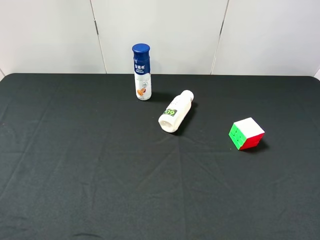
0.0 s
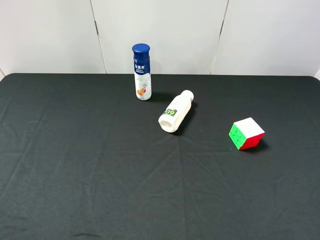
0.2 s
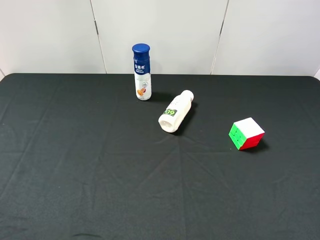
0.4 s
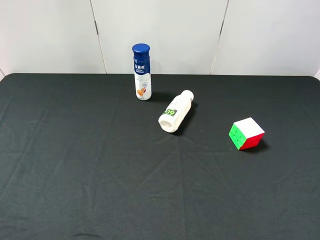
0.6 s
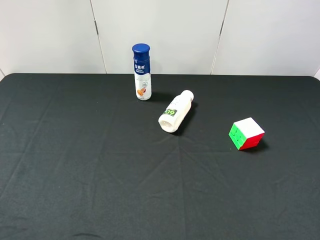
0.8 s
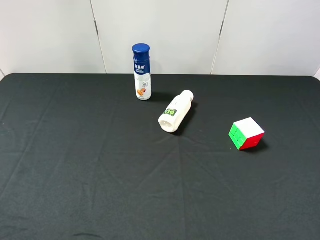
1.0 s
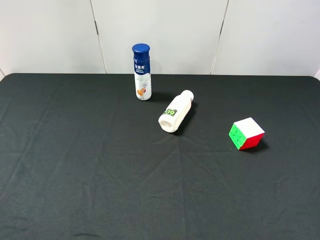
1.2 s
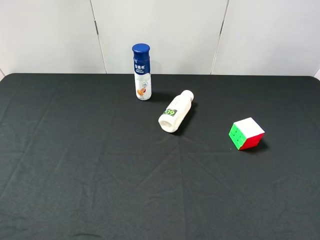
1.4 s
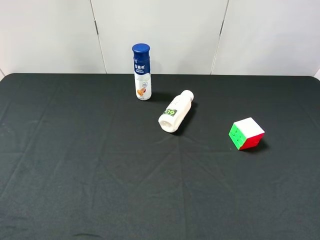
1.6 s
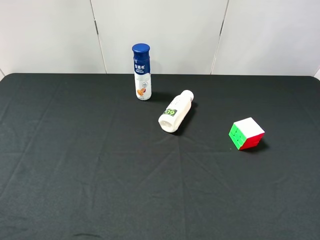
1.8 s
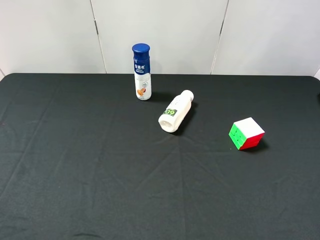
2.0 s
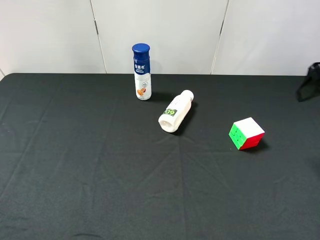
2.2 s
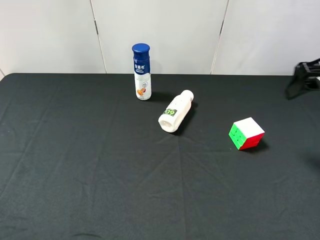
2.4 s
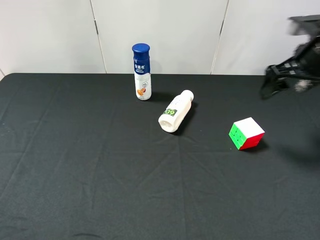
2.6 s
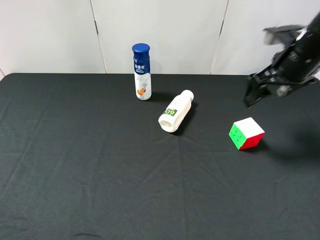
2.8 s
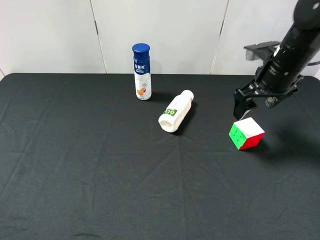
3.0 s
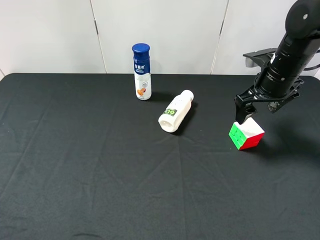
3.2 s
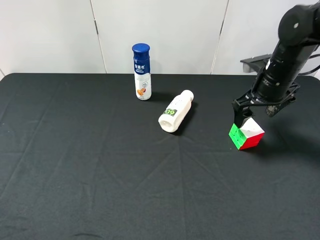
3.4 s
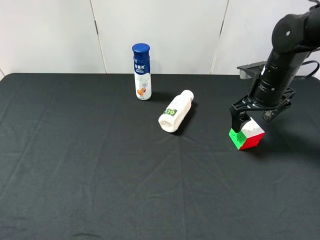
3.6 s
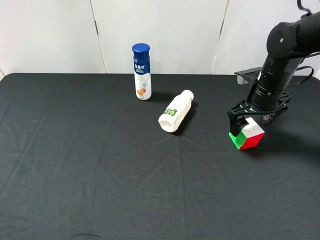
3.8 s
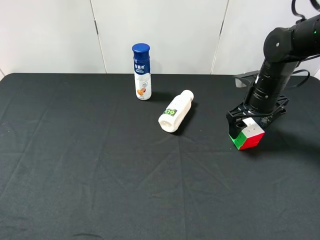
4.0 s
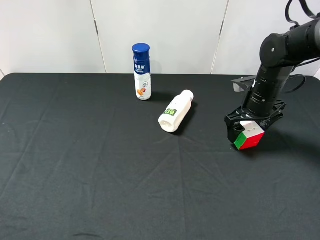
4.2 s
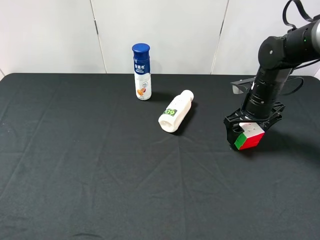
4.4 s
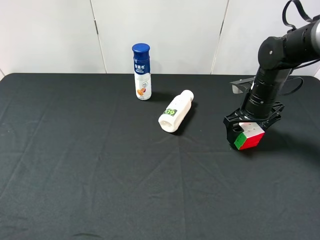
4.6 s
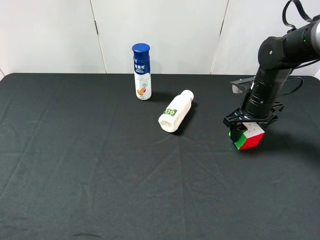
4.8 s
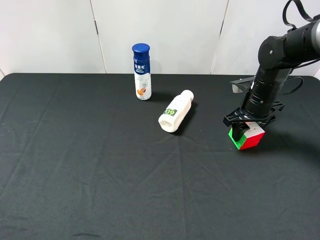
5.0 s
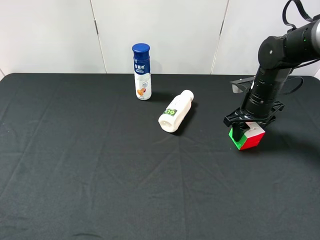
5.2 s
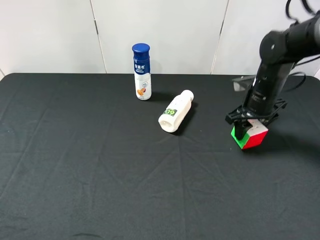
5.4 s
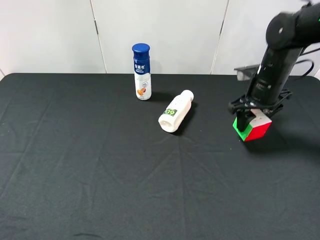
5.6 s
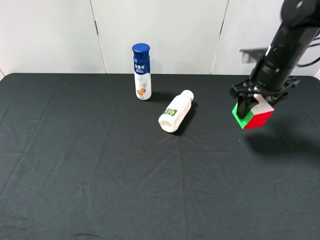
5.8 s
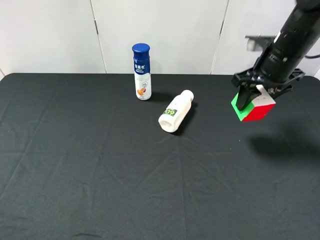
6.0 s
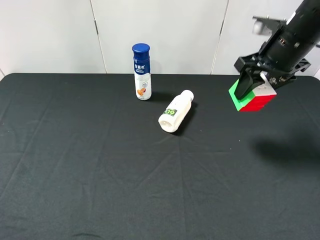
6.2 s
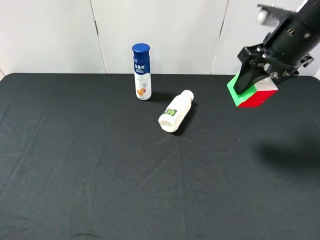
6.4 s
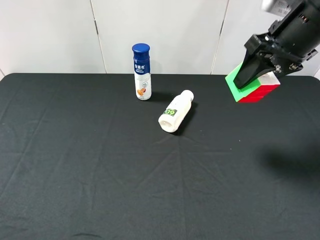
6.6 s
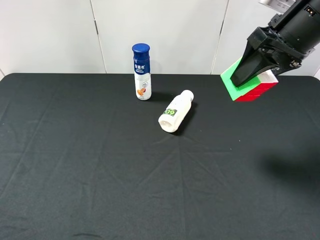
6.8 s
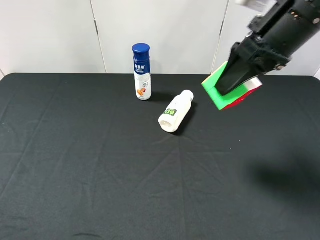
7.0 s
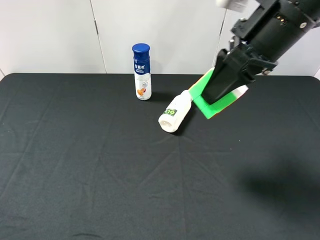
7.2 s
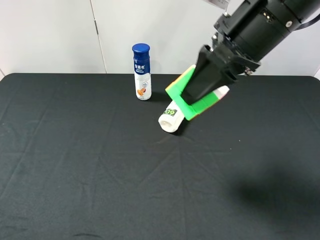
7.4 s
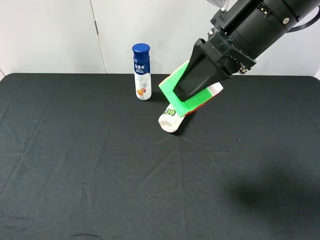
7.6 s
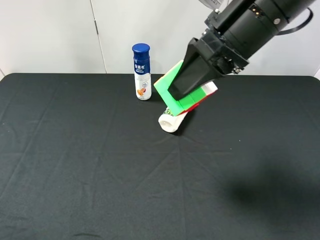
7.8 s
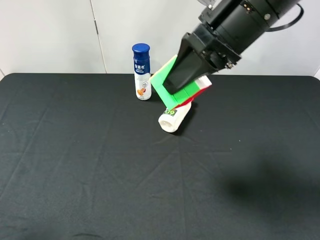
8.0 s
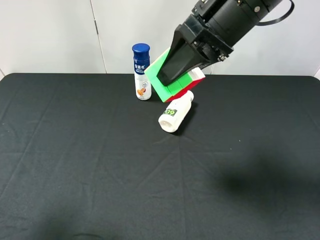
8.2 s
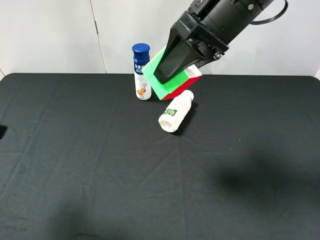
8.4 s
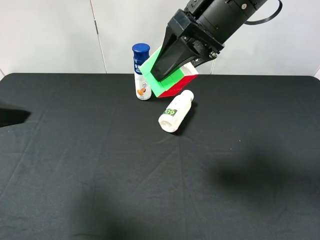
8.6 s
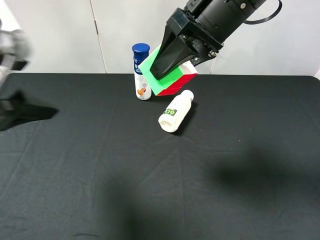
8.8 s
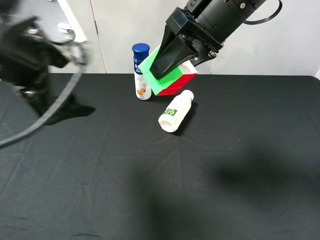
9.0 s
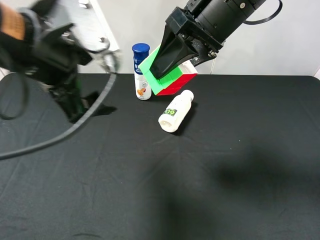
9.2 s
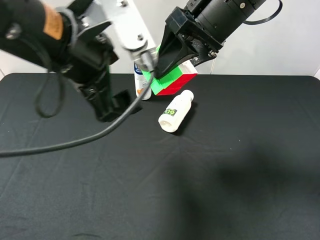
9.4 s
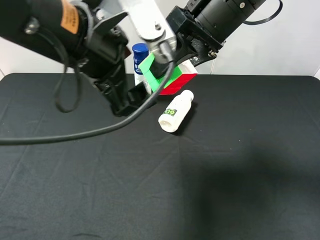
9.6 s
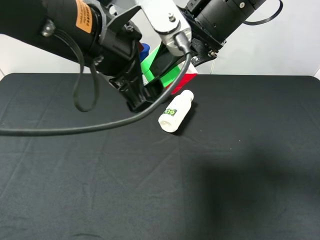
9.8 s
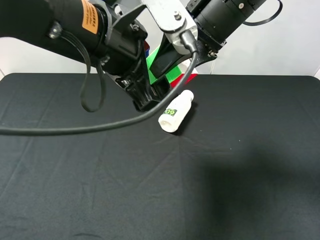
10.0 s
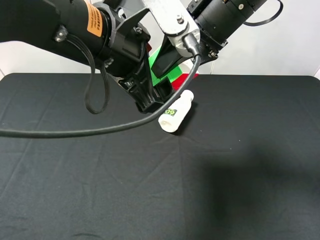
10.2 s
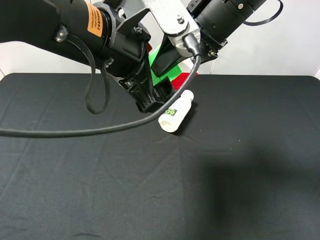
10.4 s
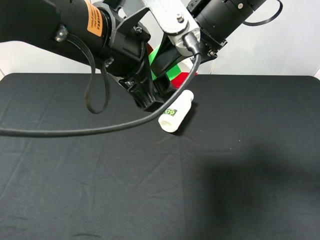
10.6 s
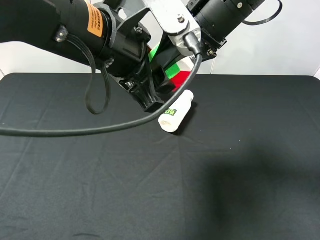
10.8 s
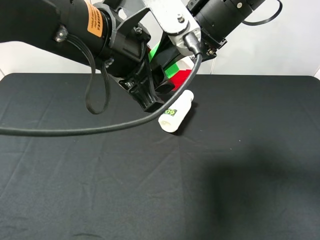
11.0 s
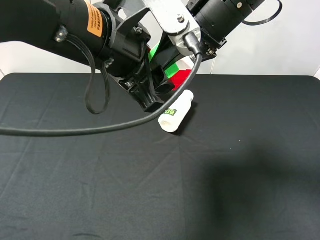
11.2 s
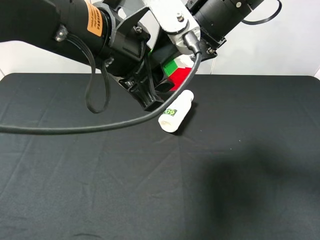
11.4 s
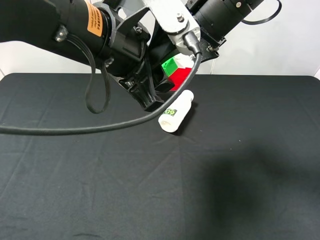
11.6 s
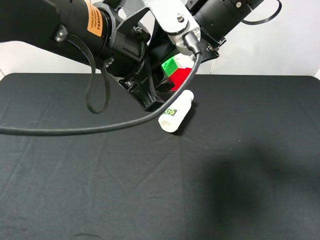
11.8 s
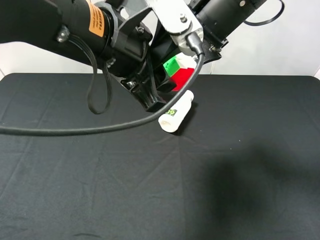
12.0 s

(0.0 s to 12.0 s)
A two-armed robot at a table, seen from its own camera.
Task of the whole recording: use the right gripper to pick up the item and transfer it from the right gripper to the left gripper.
Step, 0.0 s - 5.2 s: Use the right gripper to grab the Rubik's Cube on the right side of the table.
1.6 s - 3.0 s: The right gripper moves forward and downward, about 25 cm.
3.0 s - 4.4 s: The right gripper travels downward by about 10 cm.
4.4 s - 6.0 s: The right gripper shifts approximately 10 cm upward, and closes.
6.0 s - 7.6 s: The right gripper moves to the left, backward and upward, approximately 15 cm.
7.6 s - 9.0 s: The right gripper shifts by about 5 cm, while the left gripper travels forward and to the right by about 25 cm.
9.0 s - 10.4 s: The left gripper travels to the right by about 10 cm.
10.4 s - 12.0 s: The left gripper closes. The right gripper opens.

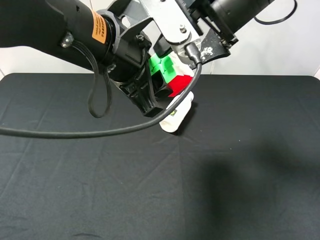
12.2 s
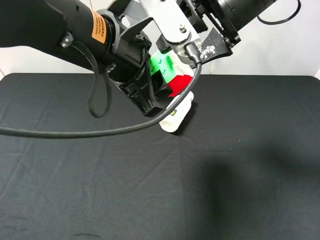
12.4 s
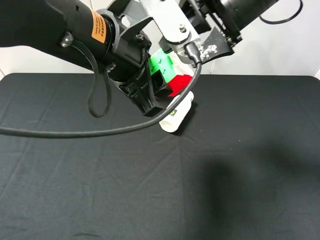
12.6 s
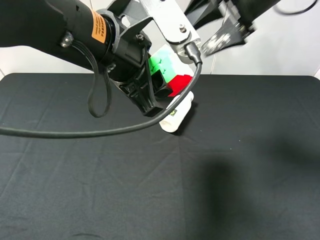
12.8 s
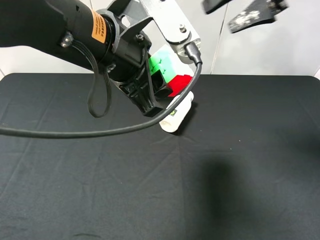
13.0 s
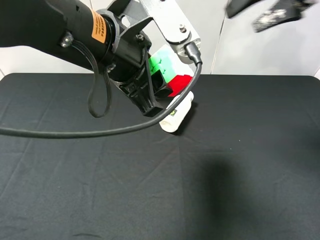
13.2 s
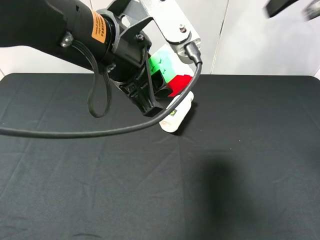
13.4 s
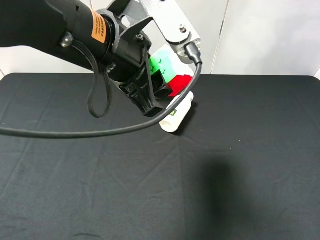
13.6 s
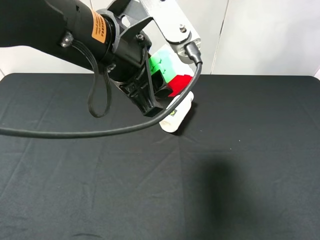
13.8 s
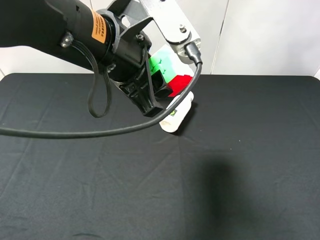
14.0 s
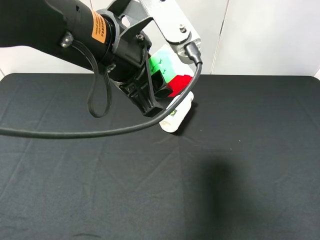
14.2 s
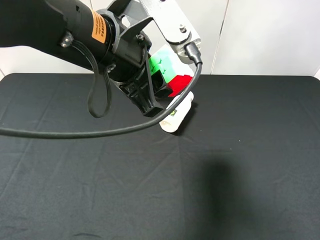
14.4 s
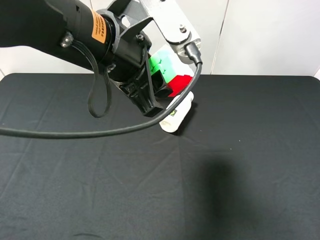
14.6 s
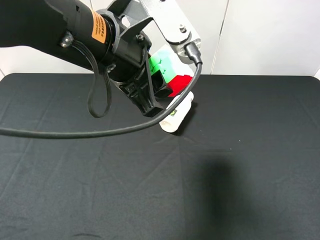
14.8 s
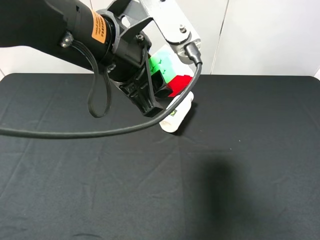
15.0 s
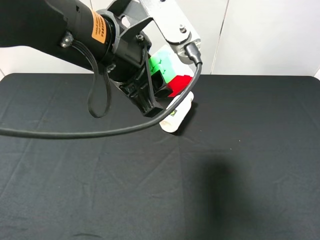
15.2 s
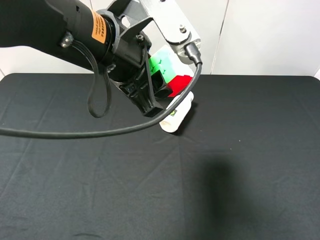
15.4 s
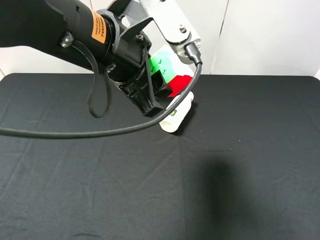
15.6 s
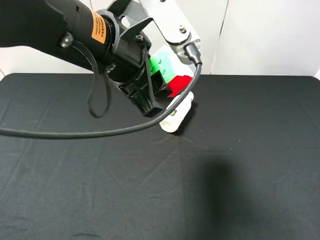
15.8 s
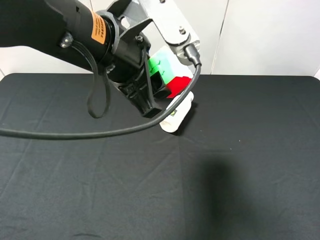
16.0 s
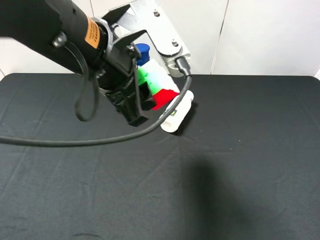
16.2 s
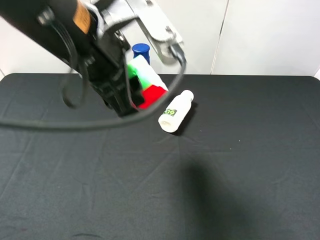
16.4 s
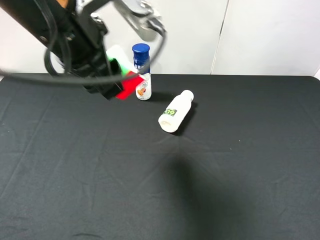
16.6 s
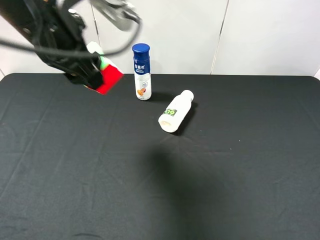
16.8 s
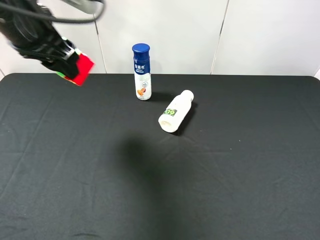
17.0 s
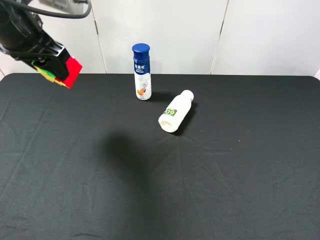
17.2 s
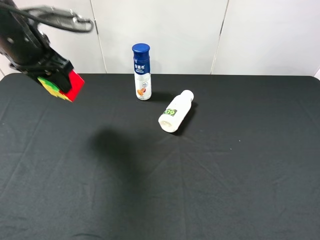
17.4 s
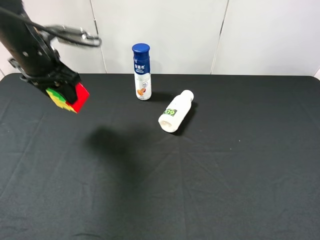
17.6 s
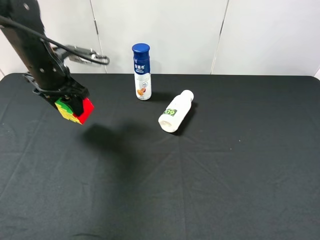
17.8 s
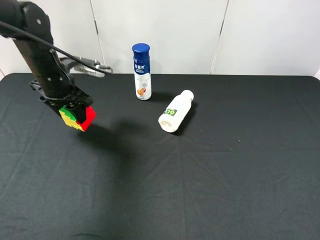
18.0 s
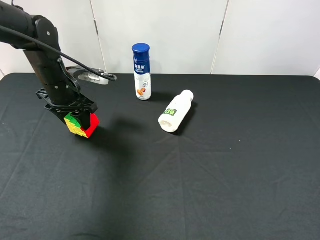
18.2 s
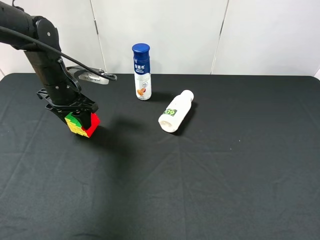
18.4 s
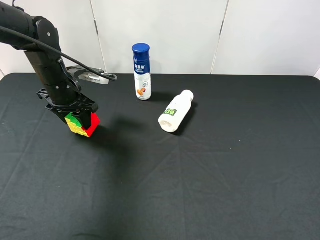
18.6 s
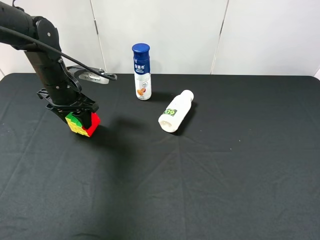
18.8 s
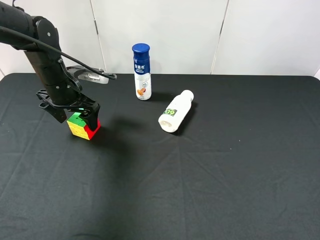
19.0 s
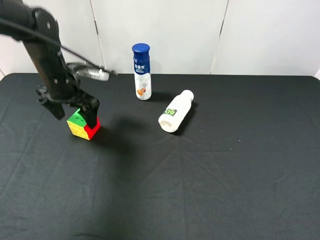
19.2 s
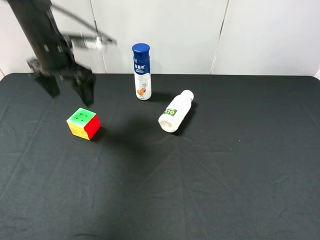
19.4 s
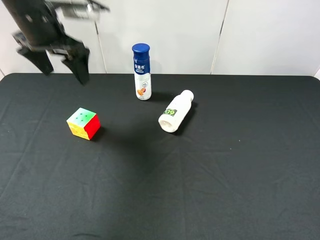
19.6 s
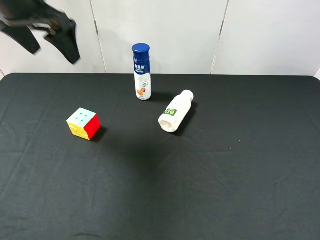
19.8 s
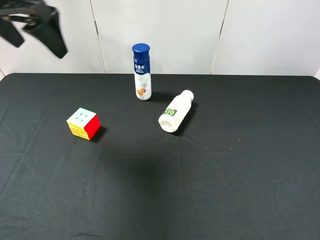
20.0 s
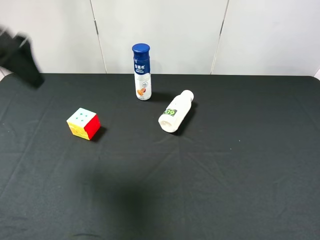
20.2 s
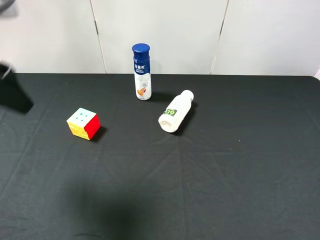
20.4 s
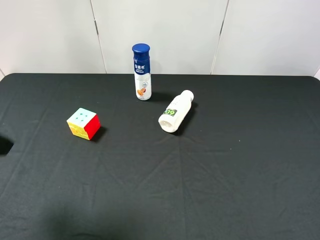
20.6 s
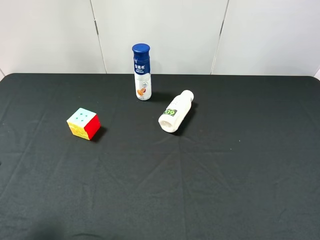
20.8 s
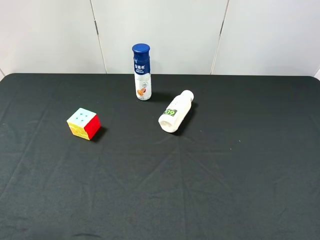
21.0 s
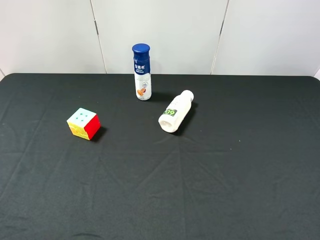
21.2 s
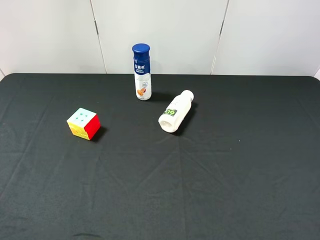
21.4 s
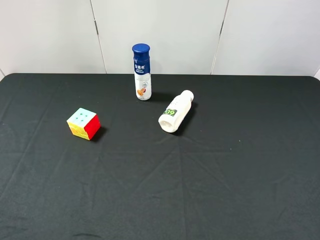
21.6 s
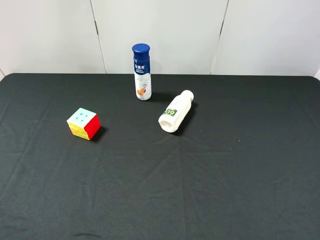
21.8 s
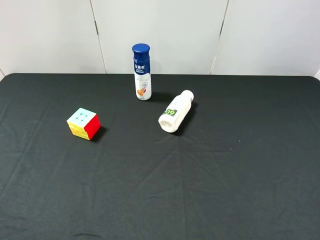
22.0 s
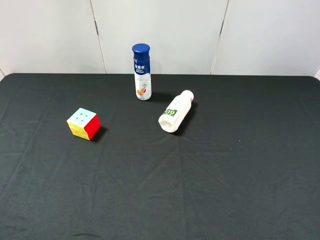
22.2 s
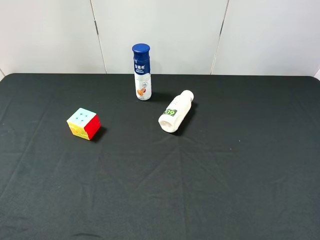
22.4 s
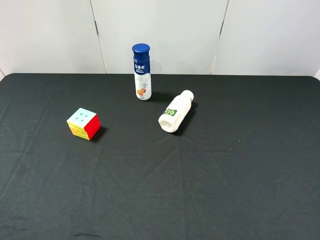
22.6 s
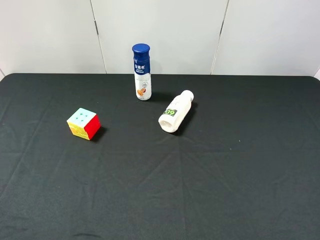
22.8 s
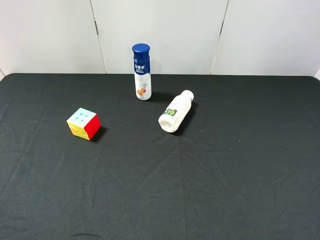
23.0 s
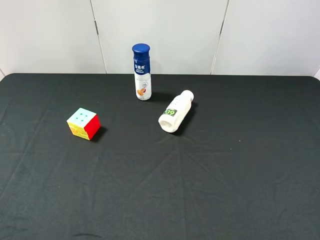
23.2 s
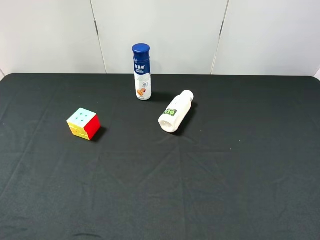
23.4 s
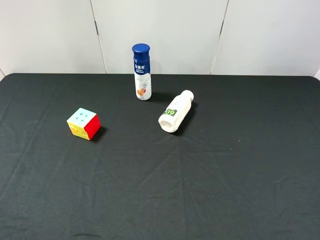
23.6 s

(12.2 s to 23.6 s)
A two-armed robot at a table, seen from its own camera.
Task of the whole recording: use the right gripper to pick up the item and transfer it from the right gripper to the left gripper.
Step, 12.6 s - 19.2 s: The left gripper places milk on the left side of the table.
12.2 s - 13.6 s: The right gripper moves to the right and upward, roughly 20 cm.
15.0 s - 16.4 s: The grippers stay close to where they were, moving slightly.
16.4 s - 17.8 s: The left gripper is displaced forward, to the left and downward by roughly 25 cm.
17.8 s - 19.4 s: The left gripper is displaced upward by about 5 cm, and opens its fingers.
19.4 s - 20.8 s: The left gripper shifts some 30 cm backward.
